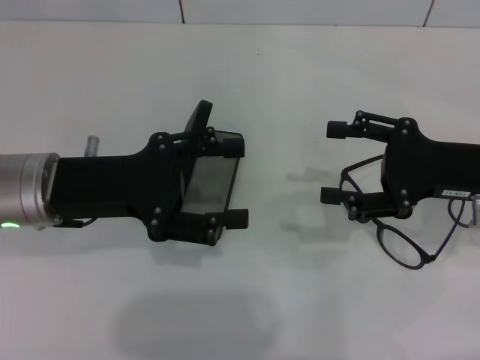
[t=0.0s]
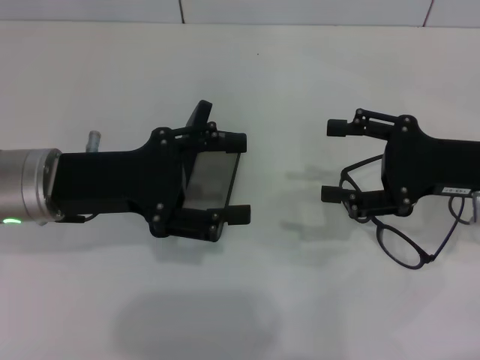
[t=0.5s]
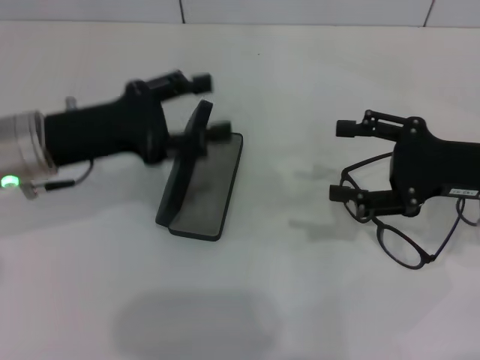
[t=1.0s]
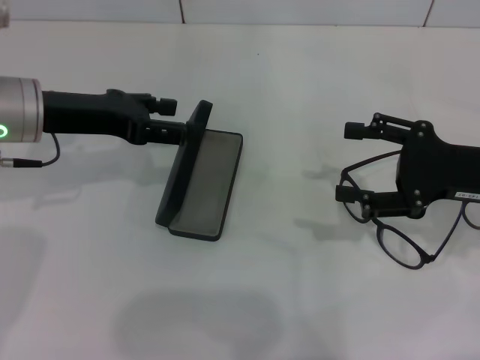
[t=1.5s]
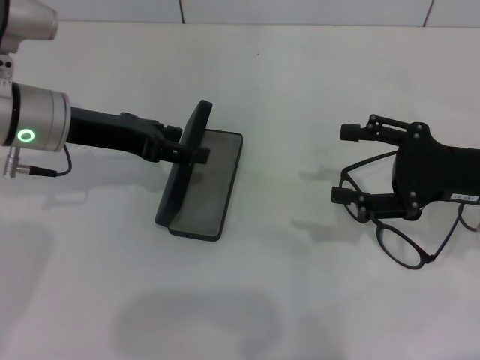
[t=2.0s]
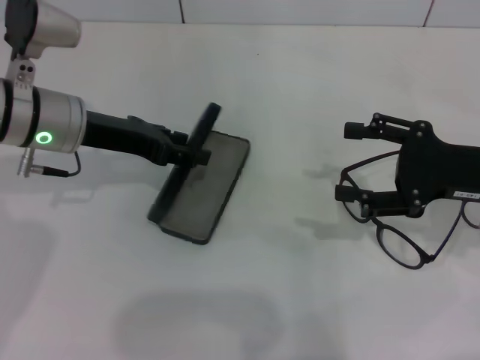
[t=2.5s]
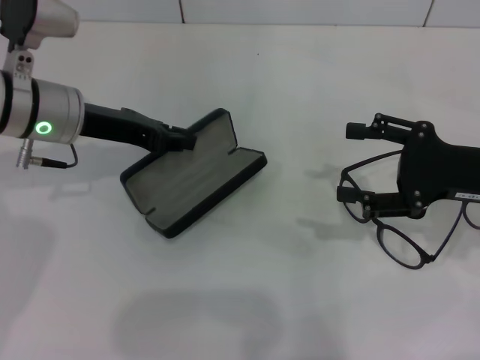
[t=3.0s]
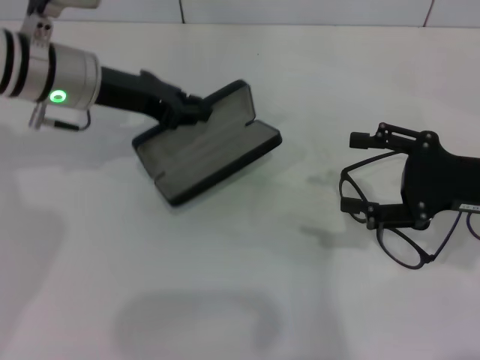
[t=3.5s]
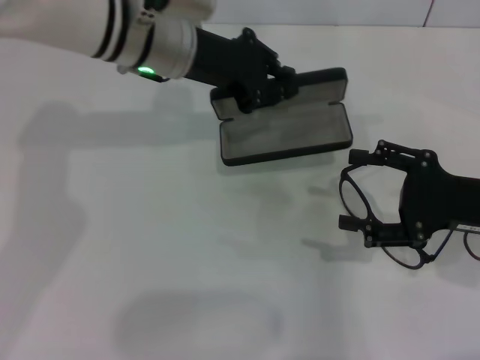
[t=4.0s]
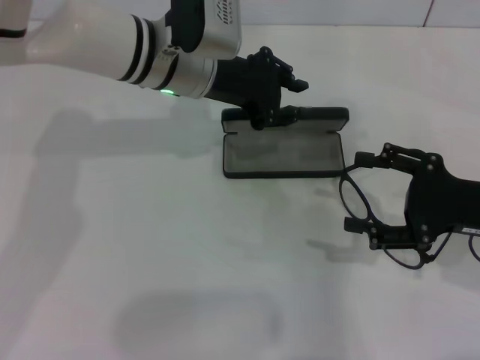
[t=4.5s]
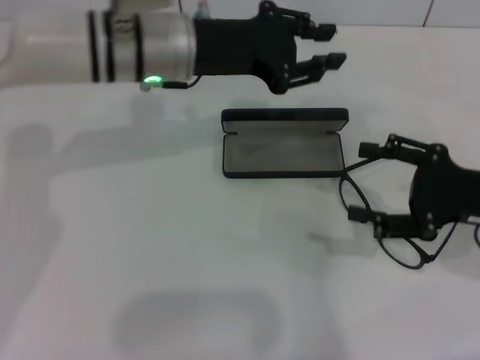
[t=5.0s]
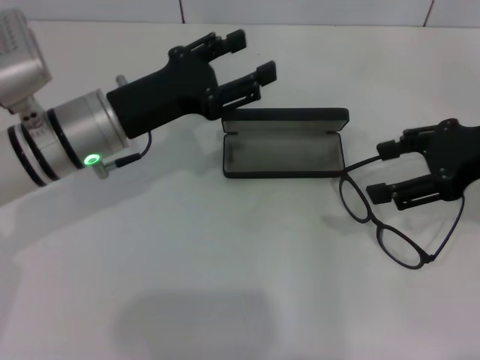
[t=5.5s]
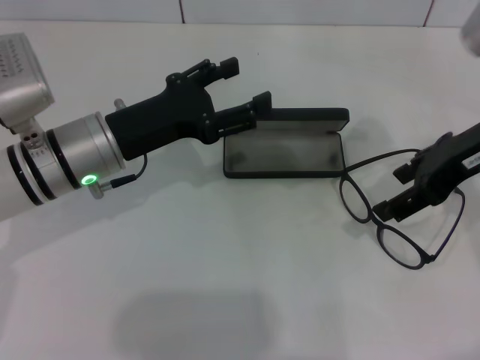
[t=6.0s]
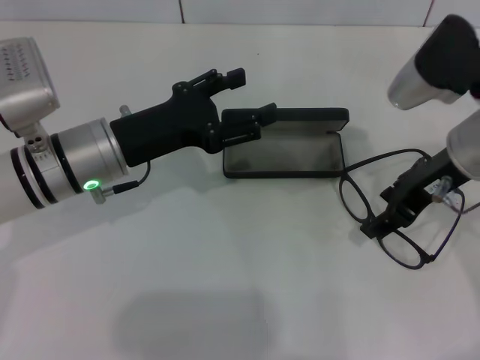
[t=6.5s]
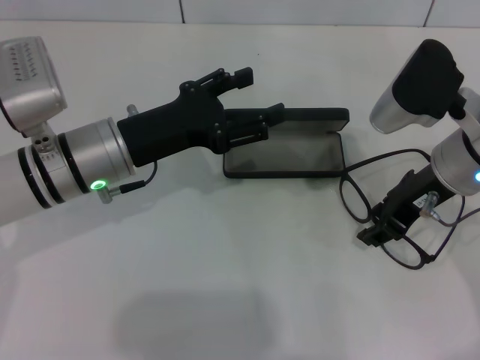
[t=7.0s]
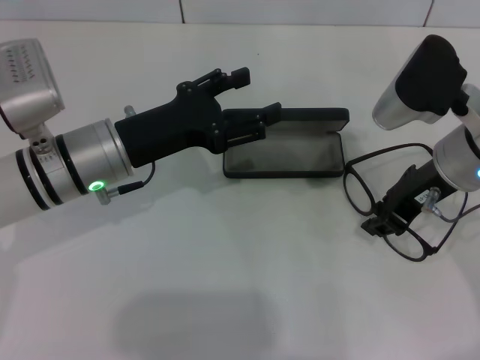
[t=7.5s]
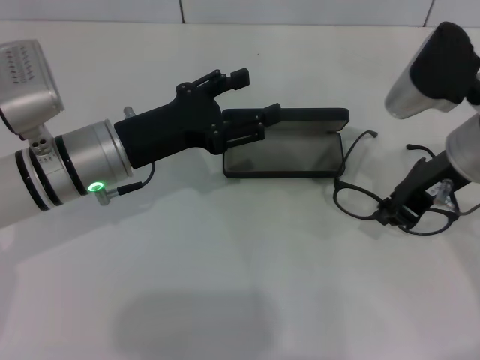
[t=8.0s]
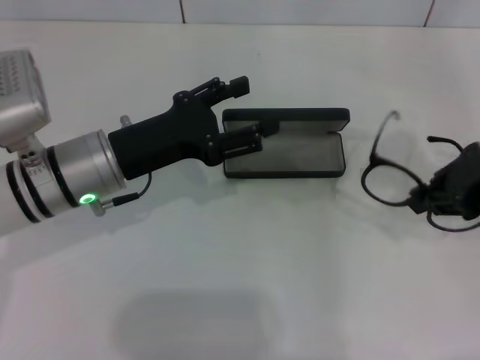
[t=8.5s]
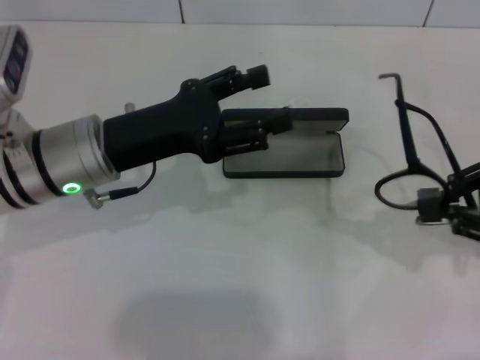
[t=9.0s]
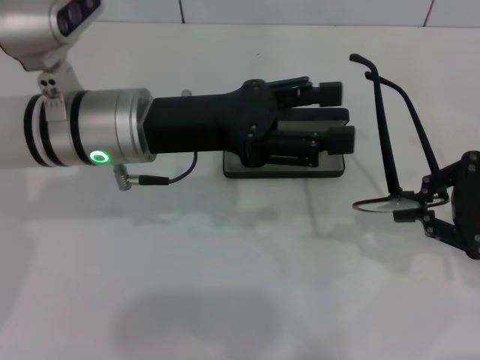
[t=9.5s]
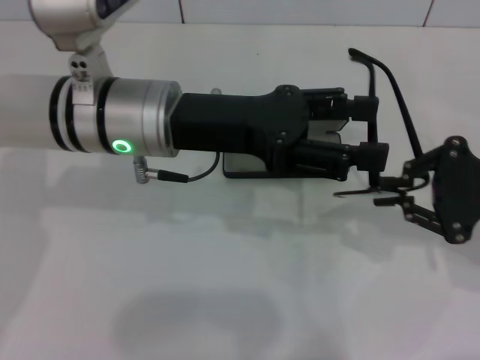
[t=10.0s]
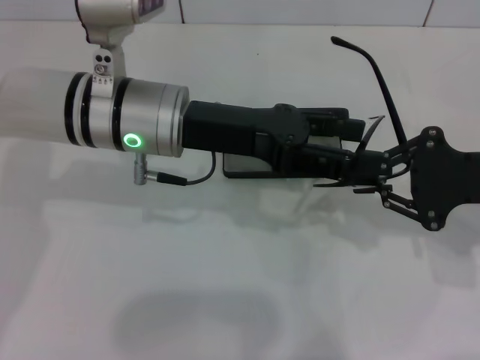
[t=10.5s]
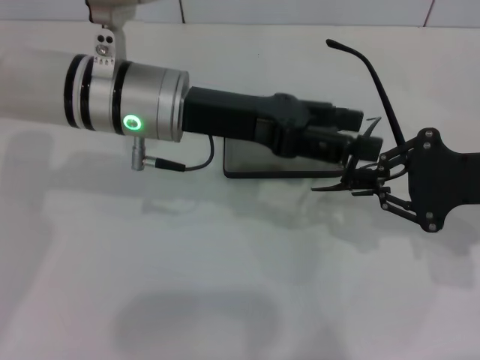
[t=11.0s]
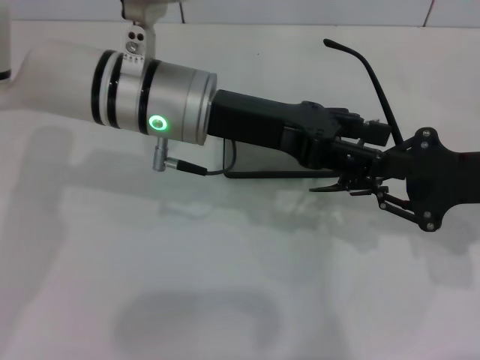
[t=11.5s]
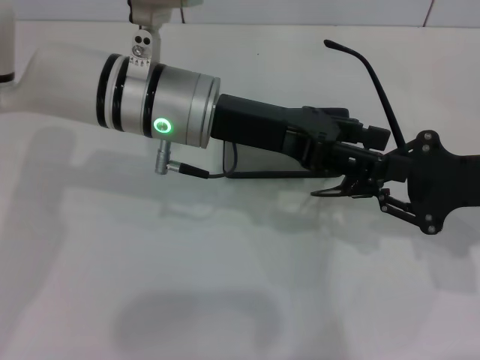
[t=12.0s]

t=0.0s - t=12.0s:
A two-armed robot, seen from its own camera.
Step, t=0.0s - t=3.0s: Grab the glasses case with your left hand.
Step, t=3.5s - t=4.5s: Place the glasses case in the center of the table with your left hand.
Step, t=5.0s - t=7.5s: Grab the eyeglass frame with your right hand.
t=0.0s - t=2.0s: The left gripper shifts about 5 cm forward.
t=2.0s - t=4.0s: The left gripper is displaced to the right and forward by roughly 15 cm, and closes its fingers.
t=4.0s - t=6.0s: The right gripper moves upward and forward, about 15 cm. Meanwhile the left gripper shifts about 15 cm backward, downward and to the left, and opens up.
t=6.0s - t=8.0s: The right gripper shifts by roughly 5 cm, and closes its fingers.
t=8.0s - t=10.0s: The left gripper shifts approximately 10 cm upward and to the right. The right gripper moves to the right and backward, roughly 10 cm.

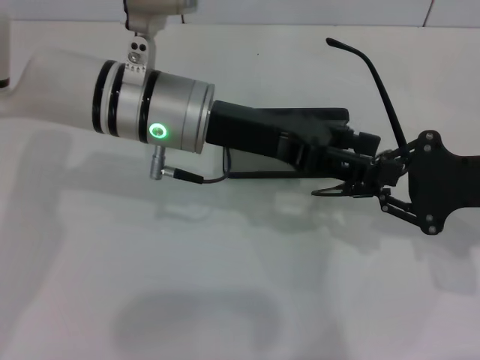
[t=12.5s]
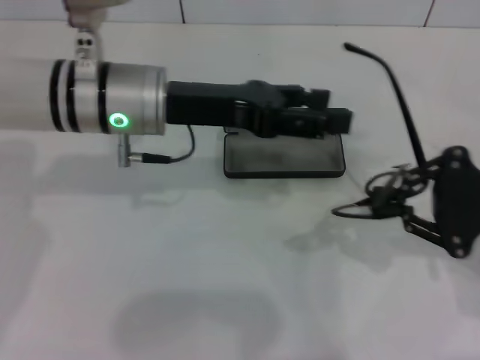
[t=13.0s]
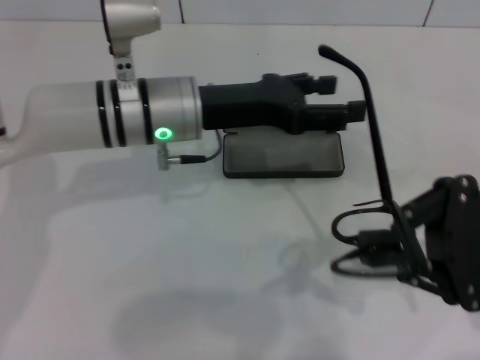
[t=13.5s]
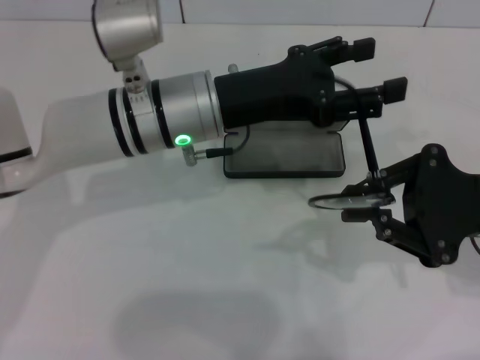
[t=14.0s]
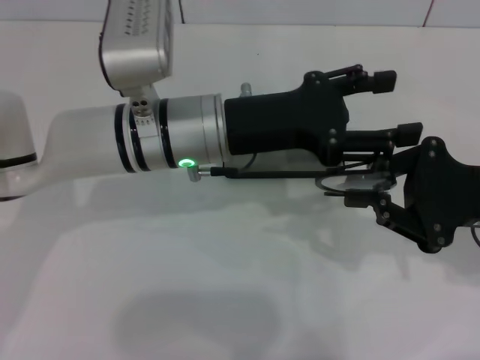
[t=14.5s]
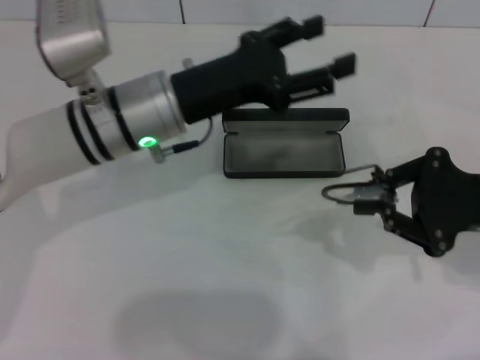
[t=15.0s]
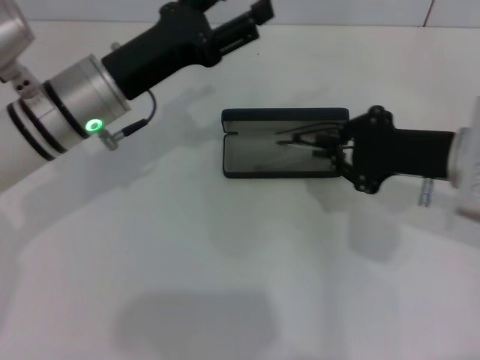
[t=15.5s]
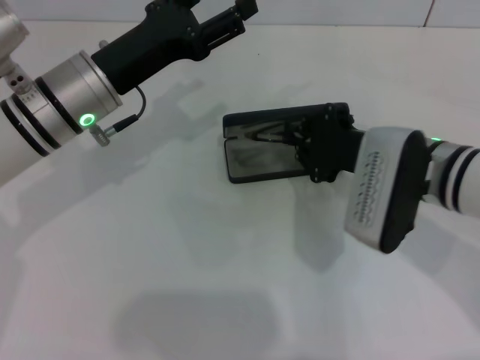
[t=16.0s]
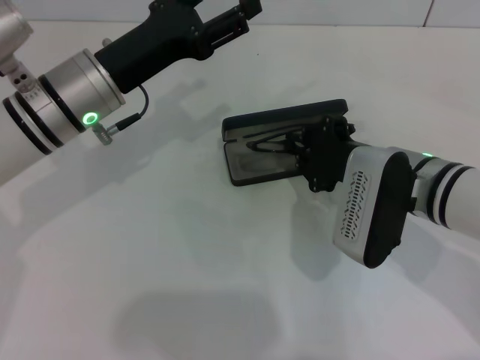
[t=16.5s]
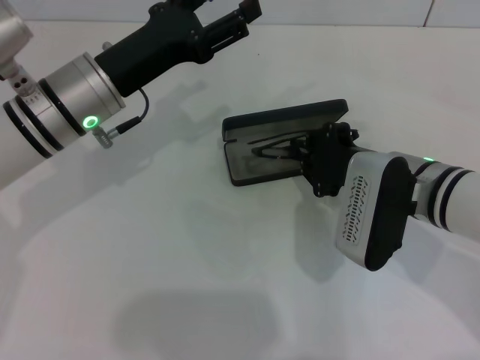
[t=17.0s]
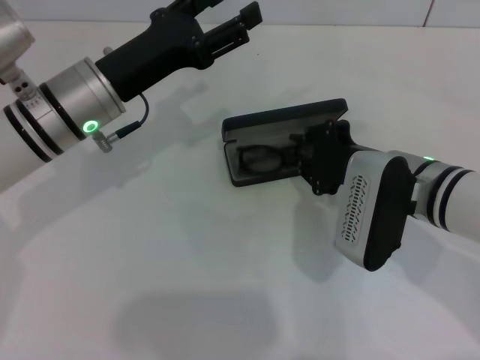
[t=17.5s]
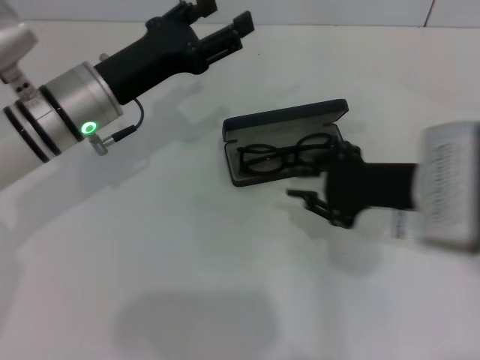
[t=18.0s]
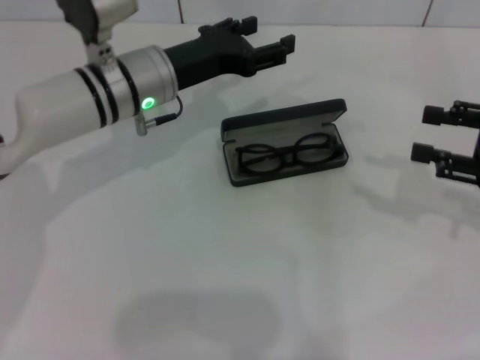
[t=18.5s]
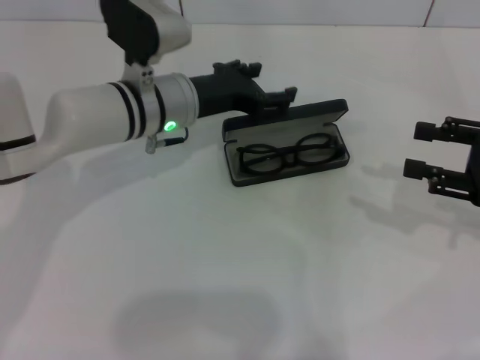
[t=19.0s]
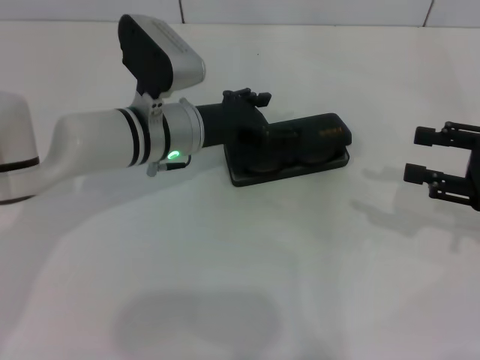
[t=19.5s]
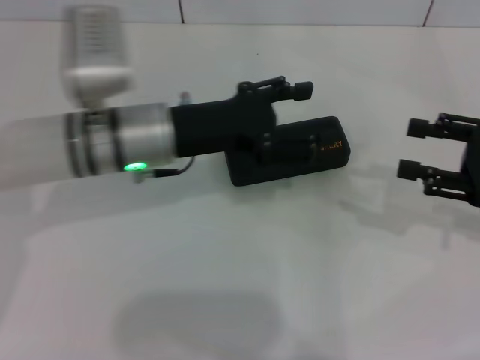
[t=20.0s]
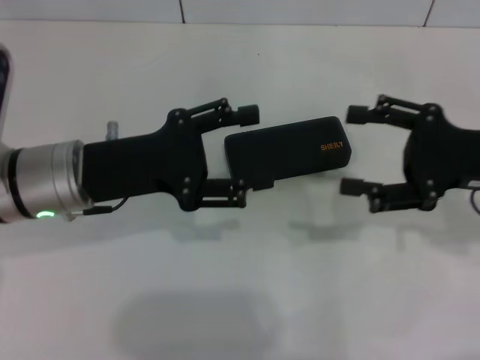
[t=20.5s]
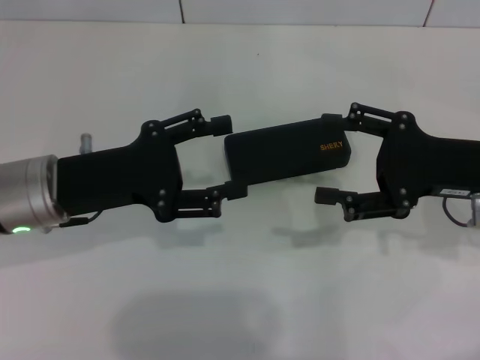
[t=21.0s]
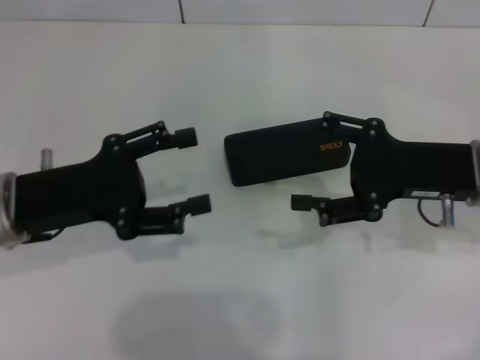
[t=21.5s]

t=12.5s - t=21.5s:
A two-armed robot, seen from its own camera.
Step, t=12.5s - t=14.5s: Fold the frame with your left hand.
Step, t=15.0s - t=17.5s: Put the glasses into the case with your right hand.
Step, t=18.0s - t=19.5s: Close the glasses case with your left hand.
t=14.5s - t=17.0s: The two grippers go some 10 cm to the left.
t=17.0s - t=19.5s: The right gripper is displaced to the right by roughly 20 cm, and opens up. The left gripper heads to the right, covering approximately 5 cm.
t=19.5s - t=21.5s: The right gripper goes roughly 10 cm to the left, and opens up, while the left gripper travels to the left and backward by some 20 cm.

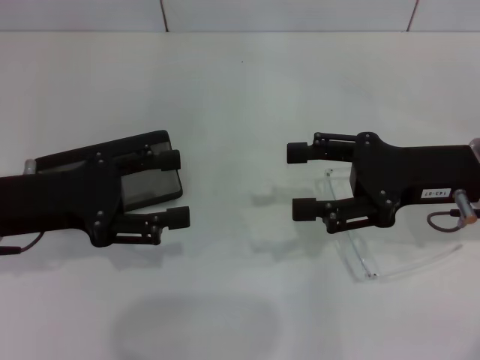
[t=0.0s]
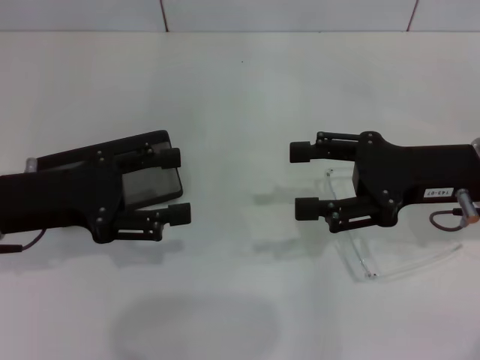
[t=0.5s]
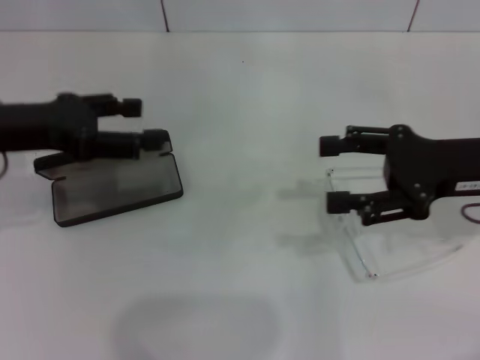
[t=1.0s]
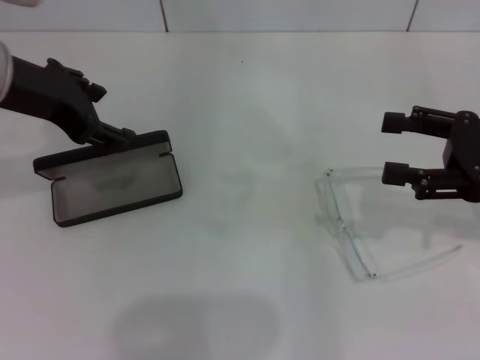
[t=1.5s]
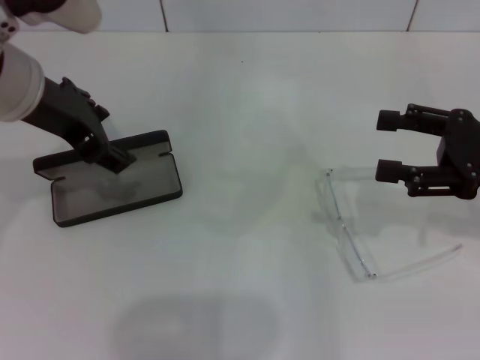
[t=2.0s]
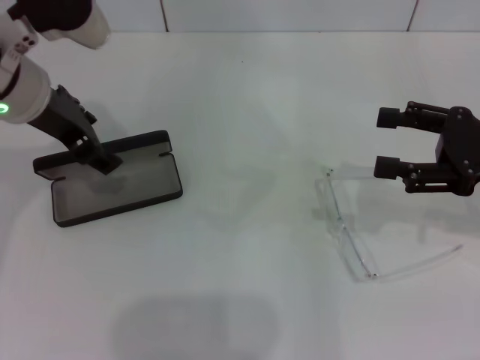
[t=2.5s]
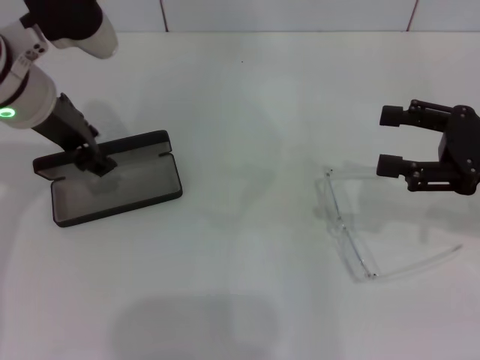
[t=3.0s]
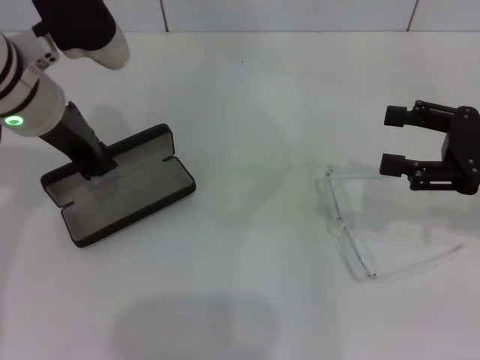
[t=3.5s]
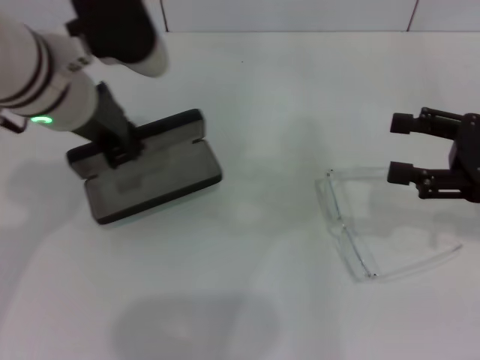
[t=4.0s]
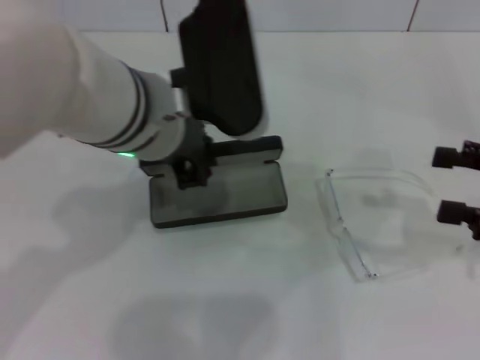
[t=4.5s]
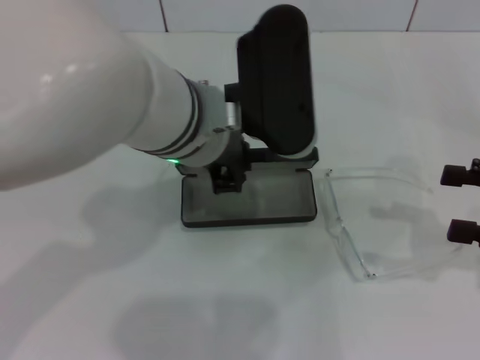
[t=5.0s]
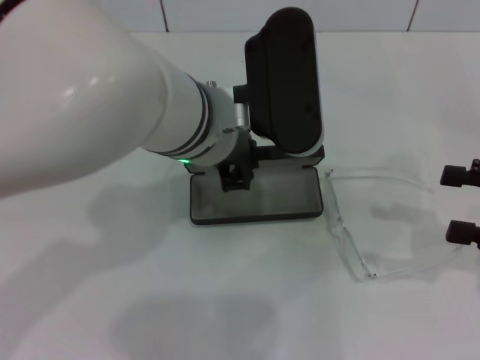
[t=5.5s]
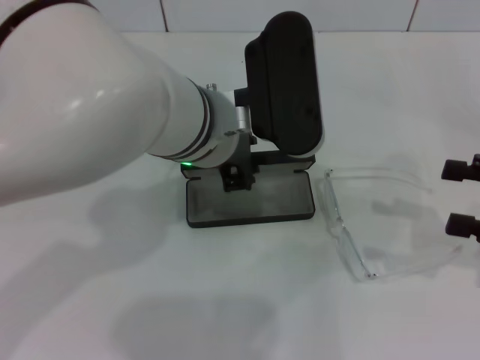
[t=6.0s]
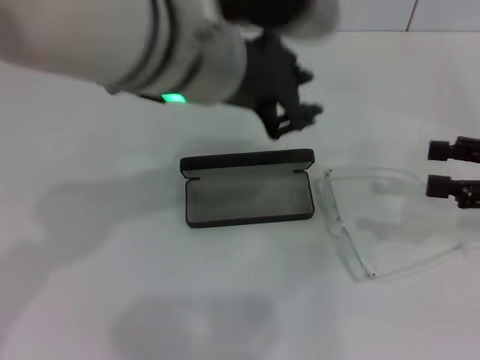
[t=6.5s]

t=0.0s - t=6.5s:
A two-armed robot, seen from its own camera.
Step, t=0.0s - t=3.0s: Grab the glasses case with your left hand.
Step, t=3.5s - t=5.5s: Place the glasses case in the center of the table with your left hand.
t=0.0s - t=2.0s: The right gripper heads to the right, covering some 5 cm, while the left gripper heads upward, to the right and forward, covering about 15 cm.
t=2.0s - t=4.5s: The left gripper shifts some 10 cm to the right, and closes up. Meanwhile the right gripper ends up roughly 5 cm from where it was.
t=4.5s - t=6.5s: The left gripper is displaced upward by roughly 5 cm.
